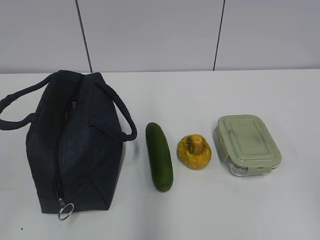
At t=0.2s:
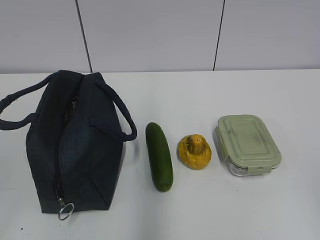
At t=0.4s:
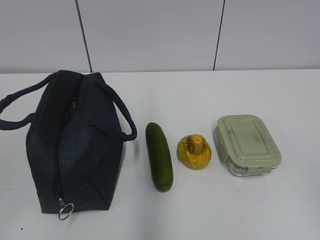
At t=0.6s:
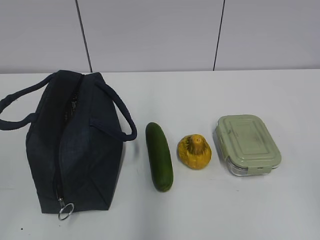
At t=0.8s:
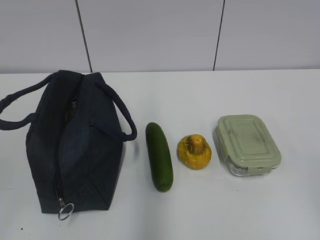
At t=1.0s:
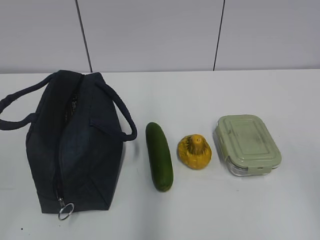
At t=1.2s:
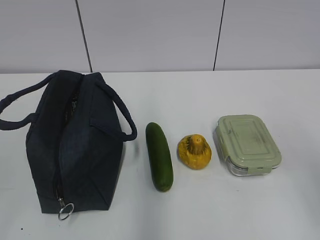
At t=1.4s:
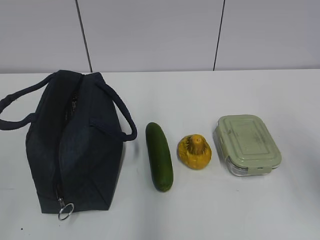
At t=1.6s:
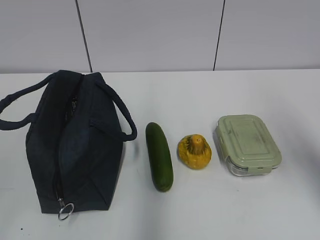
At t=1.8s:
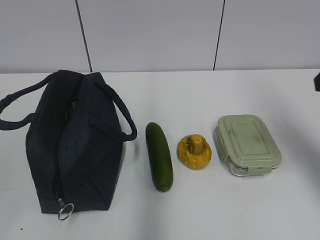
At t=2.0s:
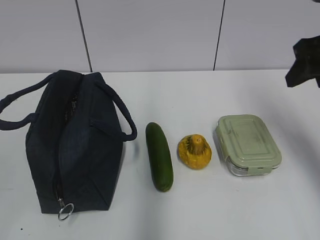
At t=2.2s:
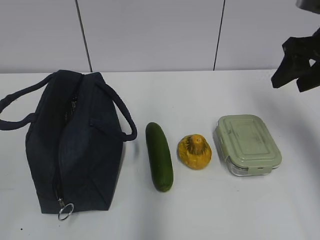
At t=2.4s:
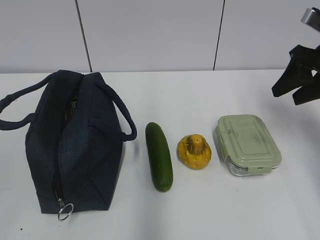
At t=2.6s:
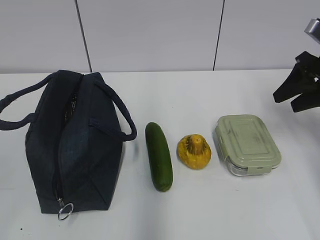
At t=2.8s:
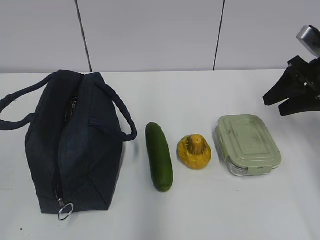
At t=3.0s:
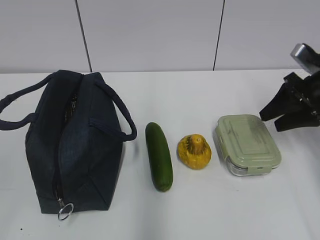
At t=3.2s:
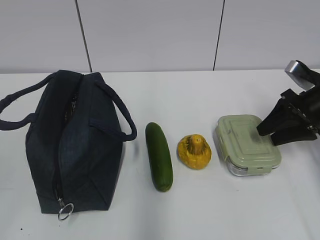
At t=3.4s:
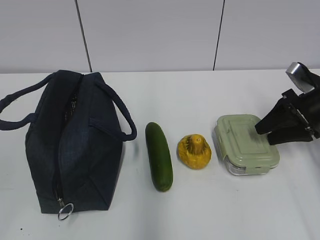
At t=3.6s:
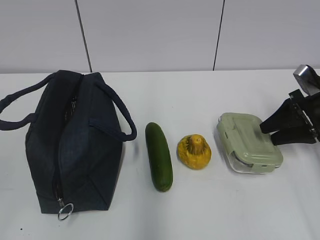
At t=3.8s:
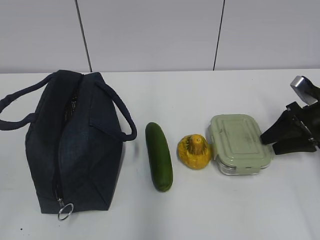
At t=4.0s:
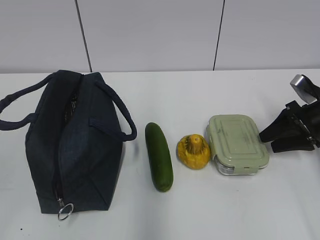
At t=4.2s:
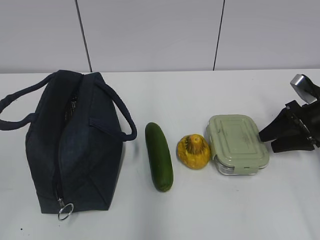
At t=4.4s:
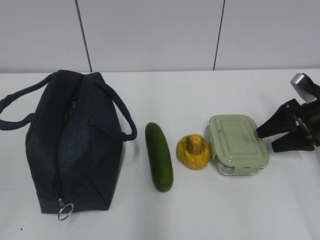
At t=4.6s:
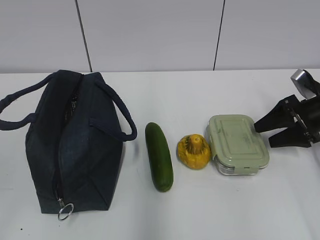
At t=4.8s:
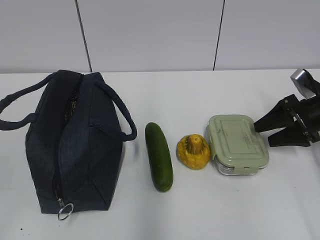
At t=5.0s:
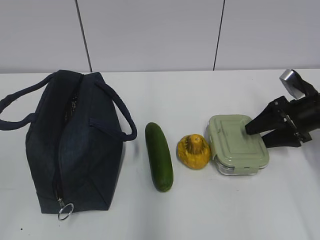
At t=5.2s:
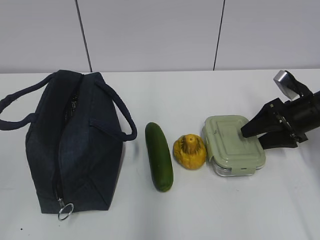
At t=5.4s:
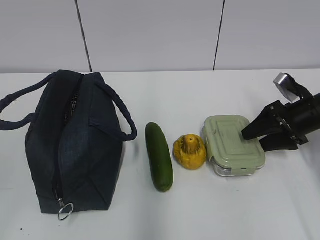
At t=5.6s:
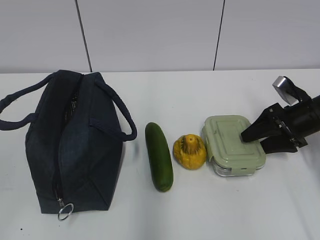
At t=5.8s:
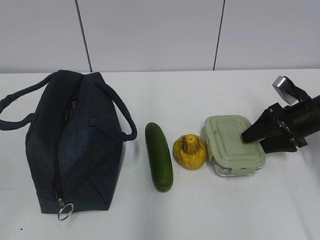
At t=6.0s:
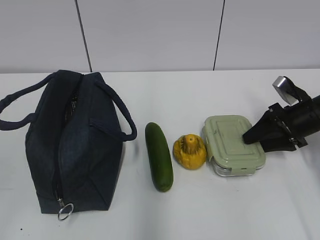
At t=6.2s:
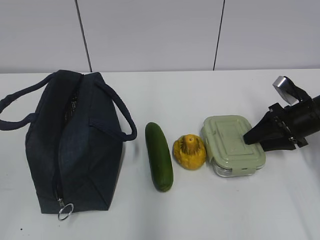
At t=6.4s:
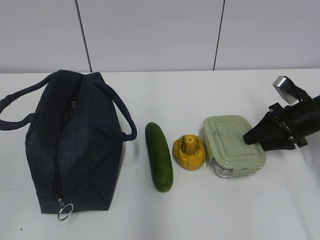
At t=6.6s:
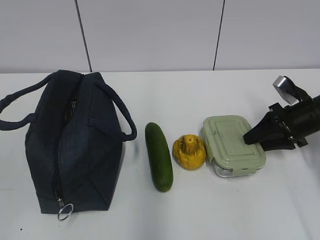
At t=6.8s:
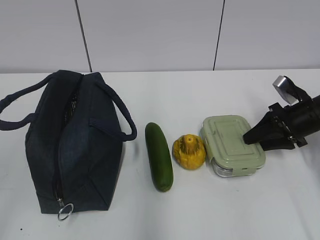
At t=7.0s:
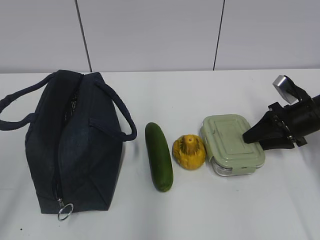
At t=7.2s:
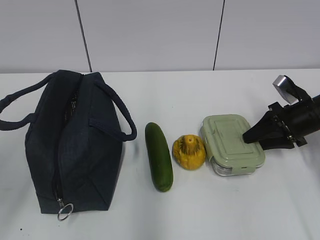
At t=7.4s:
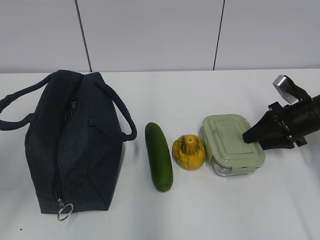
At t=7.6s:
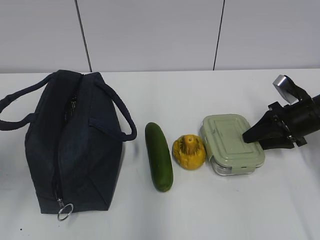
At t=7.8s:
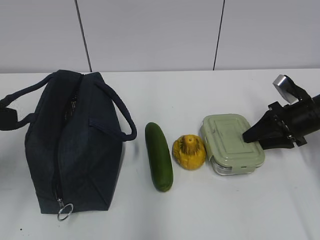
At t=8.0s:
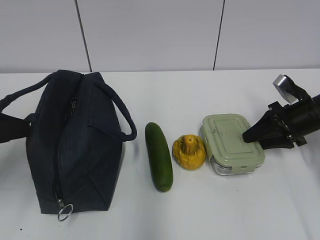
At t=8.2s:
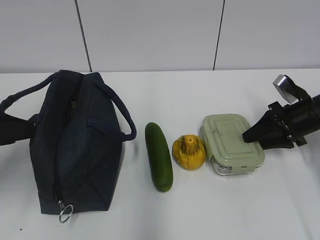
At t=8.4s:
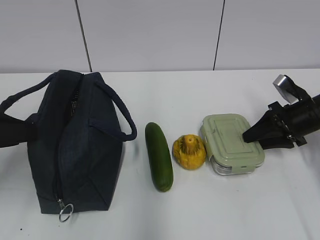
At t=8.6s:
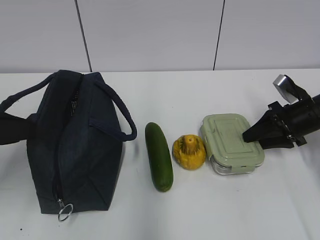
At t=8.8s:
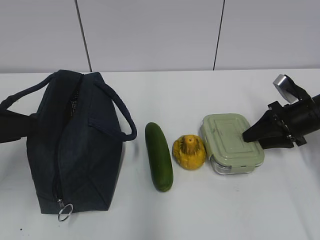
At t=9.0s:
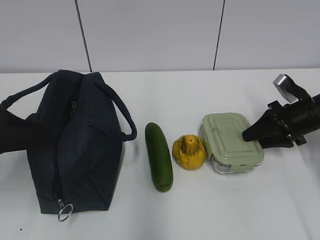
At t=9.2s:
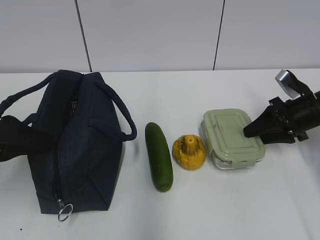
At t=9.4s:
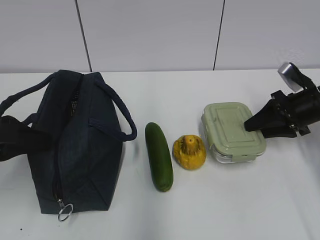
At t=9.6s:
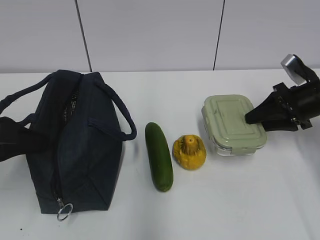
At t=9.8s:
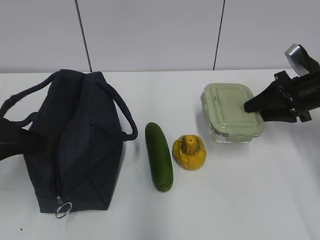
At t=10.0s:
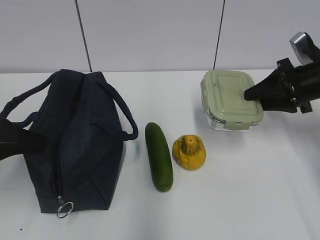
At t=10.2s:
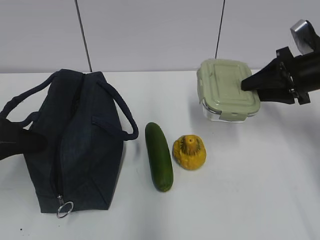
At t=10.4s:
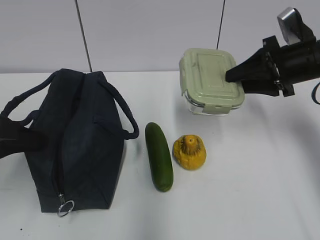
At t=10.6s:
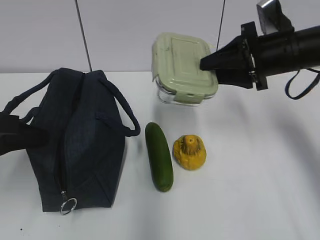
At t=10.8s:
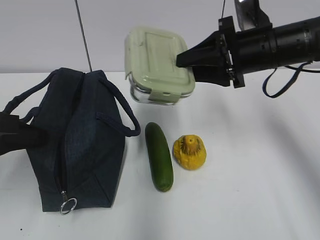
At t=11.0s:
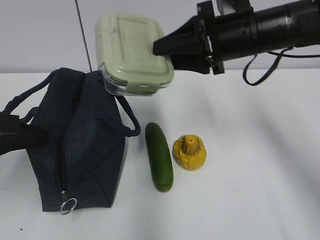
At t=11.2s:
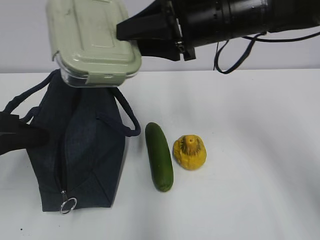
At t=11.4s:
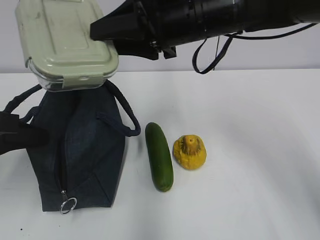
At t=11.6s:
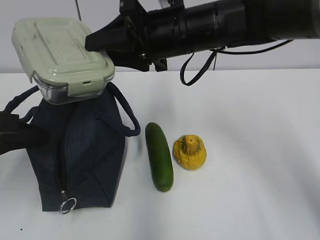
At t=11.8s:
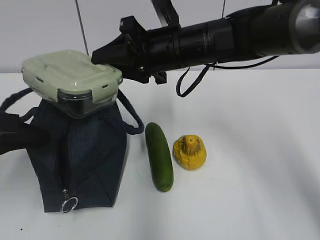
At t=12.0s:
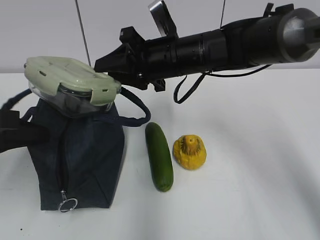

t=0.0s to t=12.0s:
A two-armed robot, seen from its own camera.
t=1.6s to t=3.0s: The right gripper is displaced forward and downward by approximately 20 cm.
t=3.0s to t=4.4s: The right gripper moves downward, about 5 cm.
t=4.4s to t=6.0s: There are only small adjustments of the grippers.
t=6.0s to t=7.6s: The left gripper heads forward, covering some 15 cm.
t=7.6s to t=9.0s: The left gripper shifts by roughly 5 cm.
t=9.0s to t=10.4s: The right gripper travels upward and to the left by approximately 15 cm, while the left gripper closes its fingers.
t=10.4s to t=12.0s: The right gripper moves to the left, approximately 20 cm.

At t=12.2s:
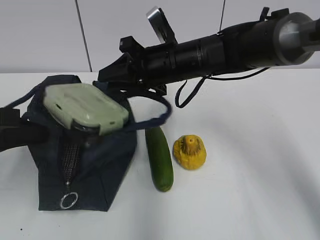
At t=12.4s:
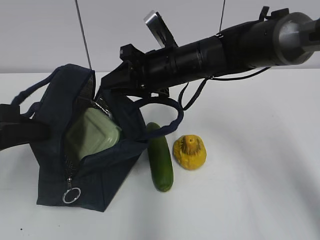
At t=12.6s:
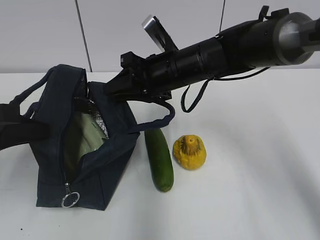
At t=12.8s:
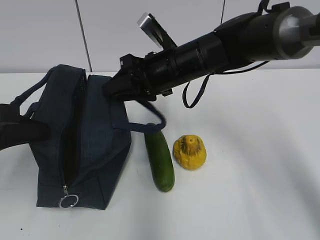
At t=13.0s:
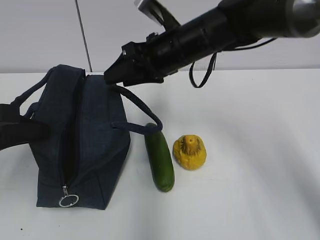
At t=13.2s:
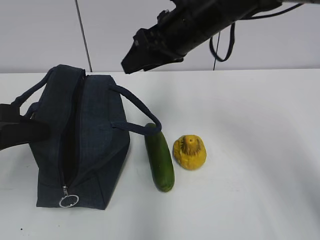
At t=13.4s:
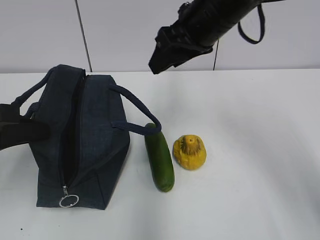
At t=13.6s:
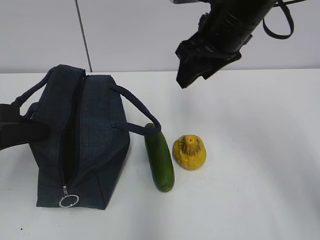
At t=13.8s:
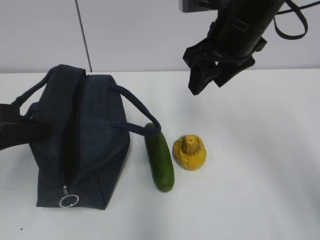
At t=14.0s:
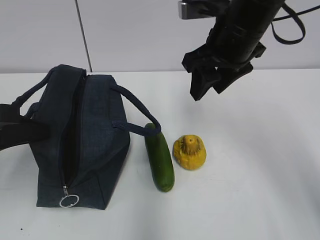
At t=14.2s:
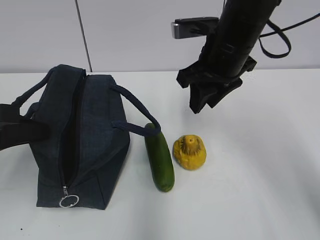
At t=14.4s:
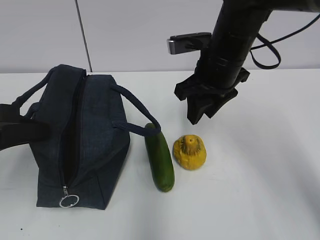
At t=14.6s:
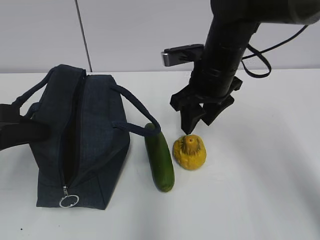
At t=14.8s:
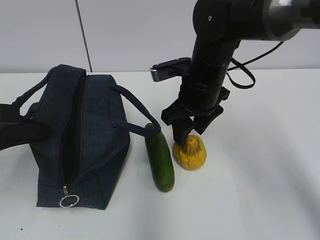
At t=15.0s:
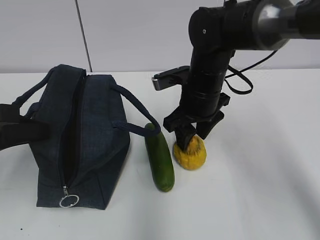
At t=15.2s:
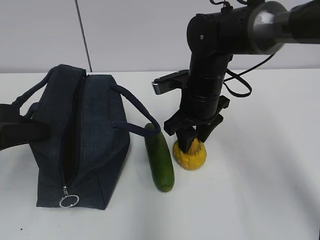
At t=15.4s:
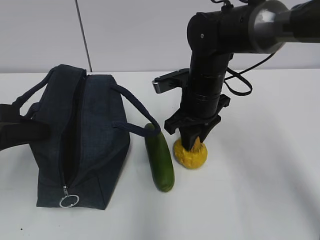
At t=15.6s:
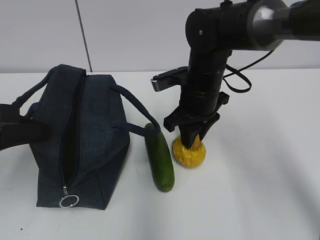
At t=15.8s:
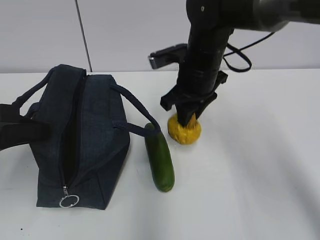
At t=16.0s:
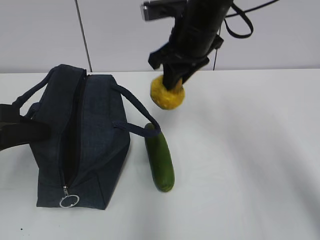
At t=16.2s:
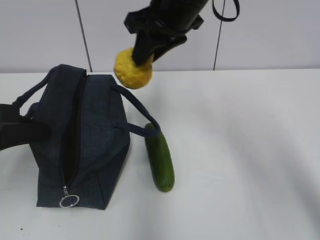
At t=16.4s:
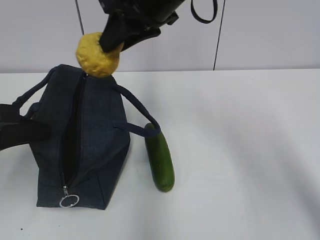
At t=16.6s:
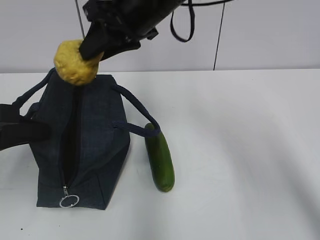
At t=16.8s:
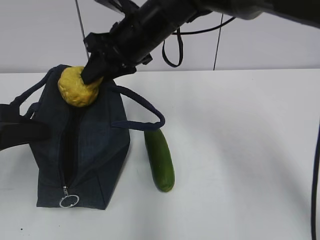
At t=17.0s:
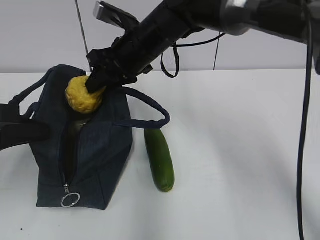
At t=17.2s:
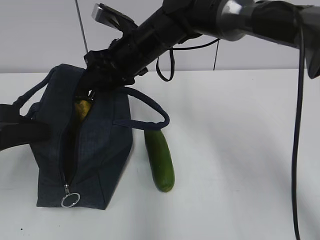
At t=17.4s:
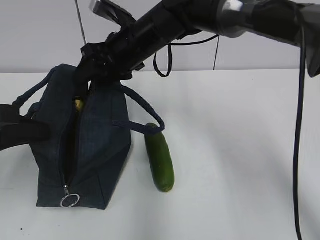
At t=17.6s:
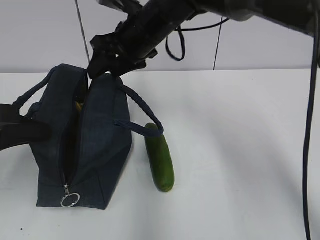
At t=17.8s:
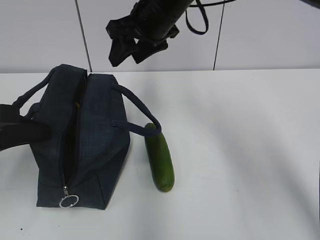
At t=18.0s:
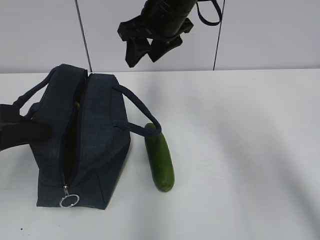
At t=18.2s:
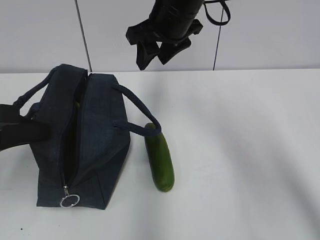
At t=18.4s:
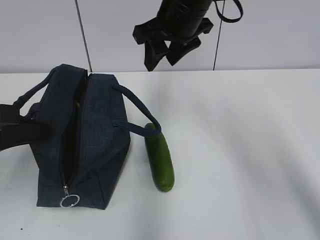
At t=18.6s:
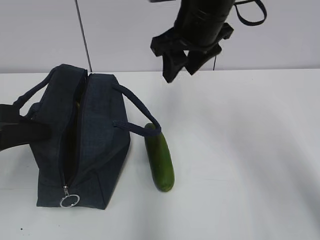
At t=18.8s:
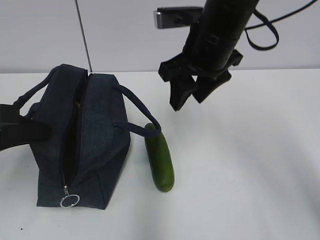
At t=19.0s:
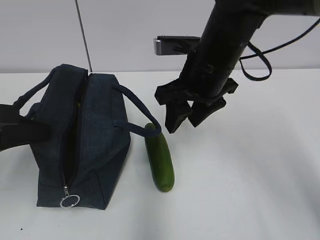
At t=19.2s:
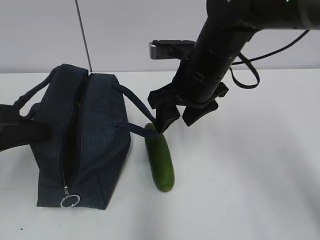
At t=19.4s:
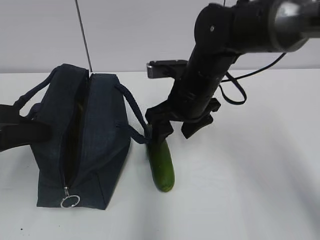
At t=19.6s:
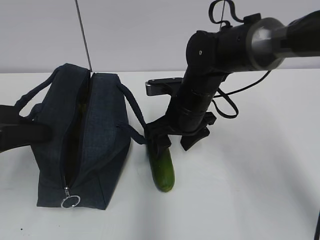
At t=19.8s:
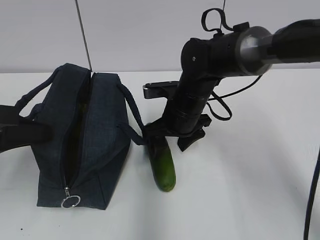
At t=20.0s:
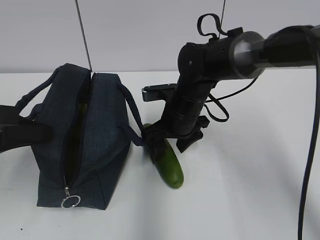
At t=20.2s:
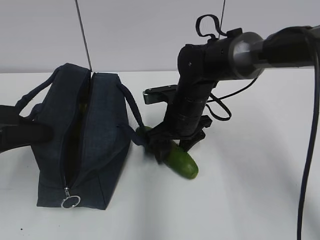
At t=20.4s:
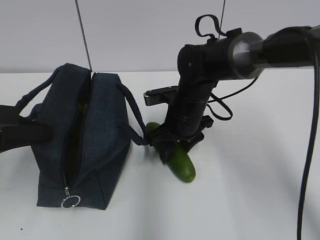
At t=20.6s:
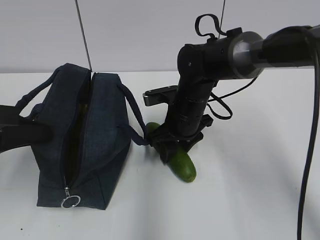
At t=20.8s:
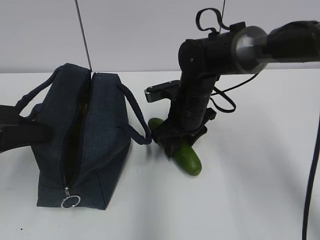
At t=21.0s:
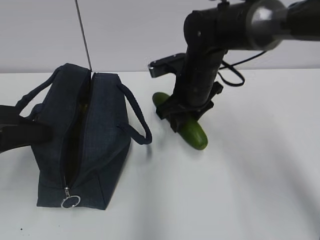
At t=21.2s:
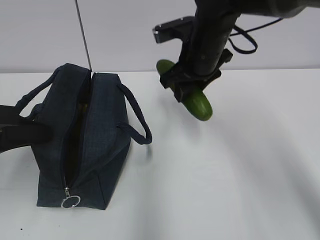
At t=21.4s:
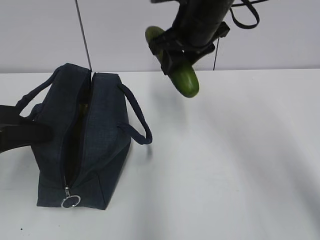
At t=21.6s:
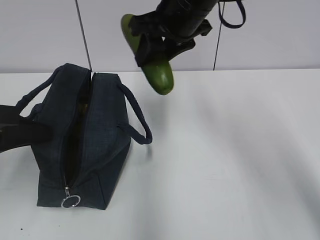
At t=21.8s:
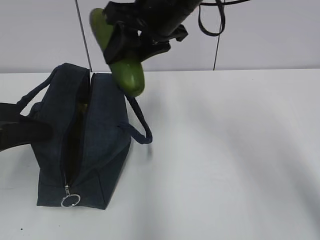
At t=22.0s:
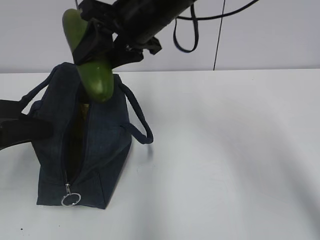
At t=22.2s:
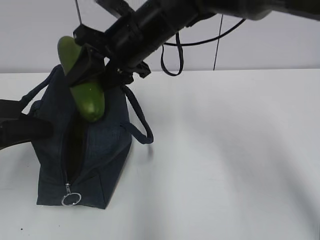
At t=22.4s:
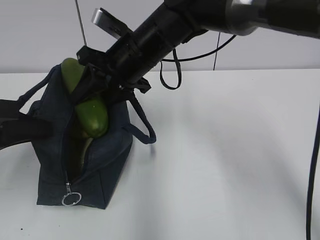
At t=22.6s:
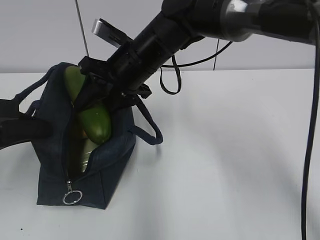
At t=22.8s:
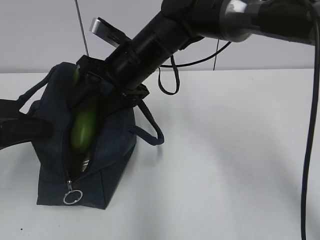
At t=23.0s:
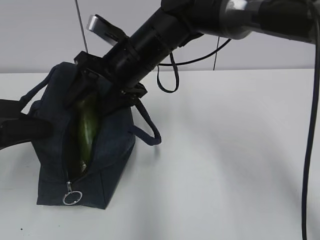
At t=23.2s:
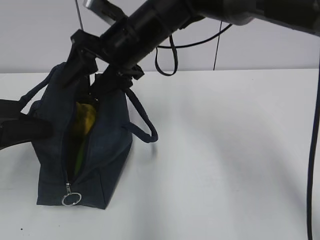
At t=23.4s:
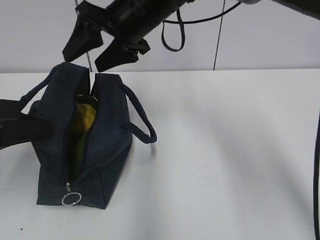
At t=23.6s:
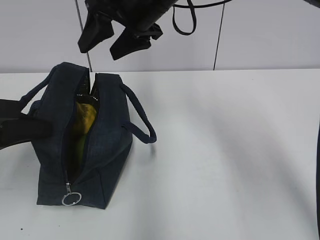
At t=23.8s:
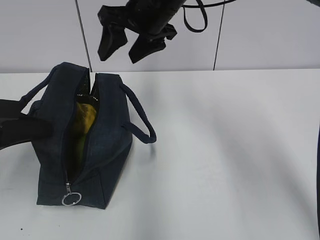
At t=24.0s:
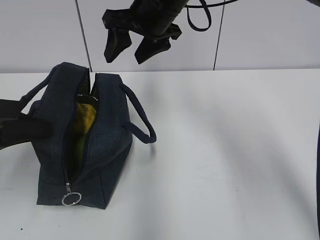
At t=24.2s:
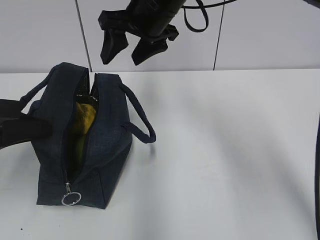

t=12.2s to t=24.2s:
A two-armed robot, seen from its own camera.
t=12.2s to t=13.8s: The right gripper heads upward and to the right, covering about 10 cm, and opens its fingers.
t=13.8s to t=15.2s: The right gripper is displaced downward by roughly 15 cm.
t=15.2s to t=16.6s: The right gripper travels upward and to the left by about 15 cm.
t=16.6s to t=18.2s: The right gripper travels downward and back again, some 10 cm each way.
t=18.2s to t=19.8s: The right gripper travels downward by some 15 cm.
t=19.8s to t=21.2s: The right gripper goes approximately 10 cm upward, and closes.
t=21.2s to t=22.6s: The right gripper moves to the left, about 10 cm.
t=22.6s to t=24.2s: The right gripper is displaced upward by roughly 5 cm.
